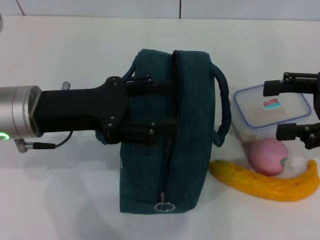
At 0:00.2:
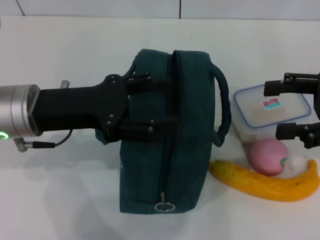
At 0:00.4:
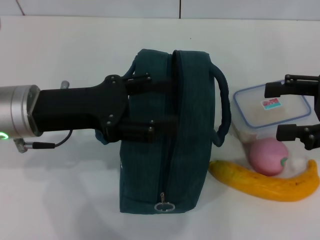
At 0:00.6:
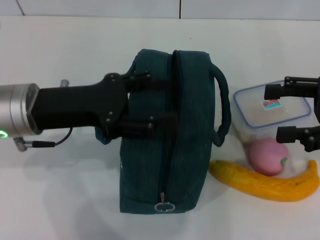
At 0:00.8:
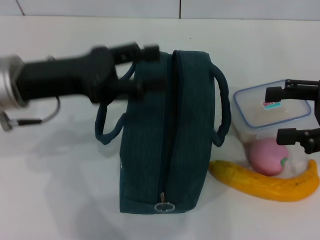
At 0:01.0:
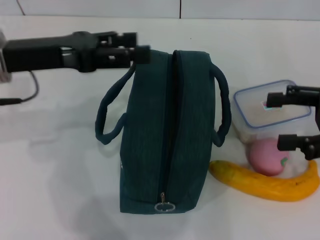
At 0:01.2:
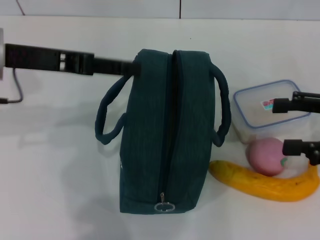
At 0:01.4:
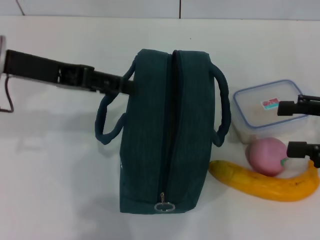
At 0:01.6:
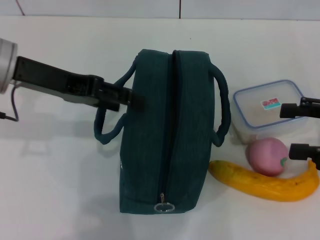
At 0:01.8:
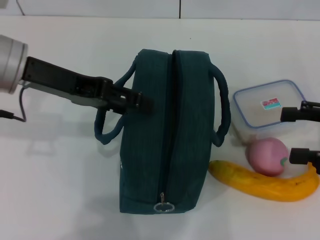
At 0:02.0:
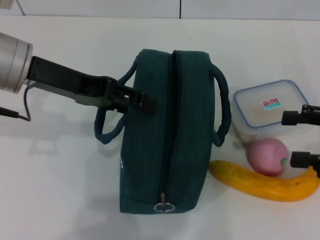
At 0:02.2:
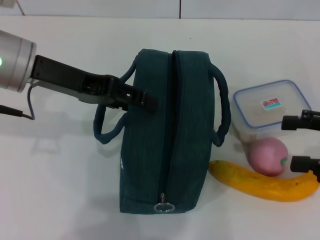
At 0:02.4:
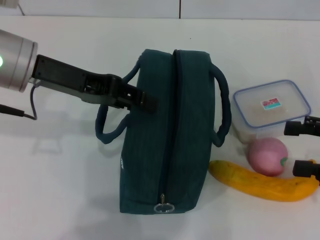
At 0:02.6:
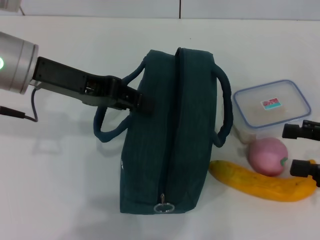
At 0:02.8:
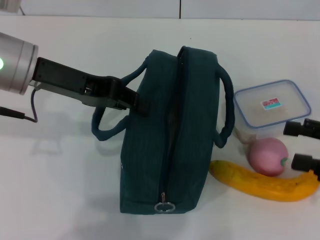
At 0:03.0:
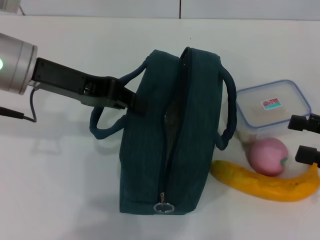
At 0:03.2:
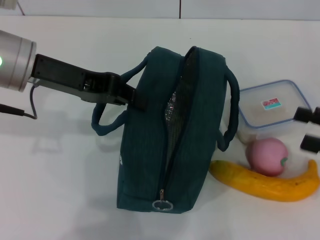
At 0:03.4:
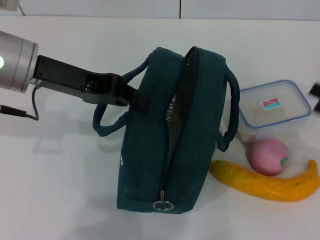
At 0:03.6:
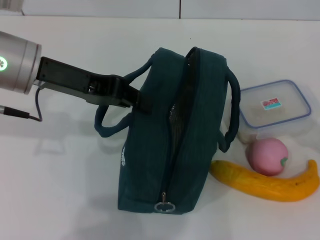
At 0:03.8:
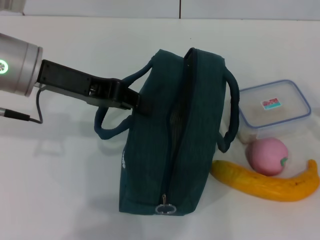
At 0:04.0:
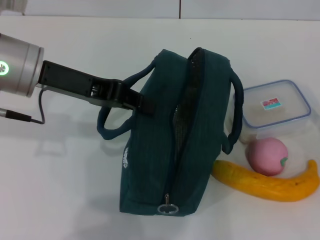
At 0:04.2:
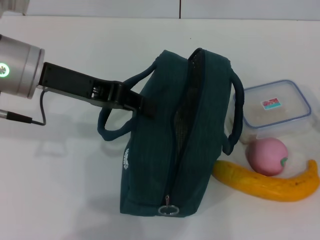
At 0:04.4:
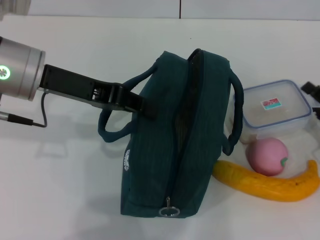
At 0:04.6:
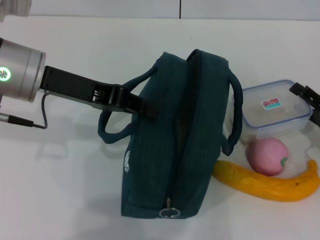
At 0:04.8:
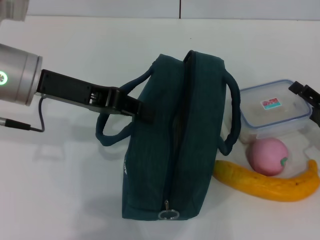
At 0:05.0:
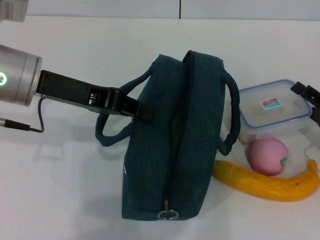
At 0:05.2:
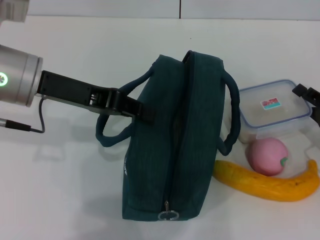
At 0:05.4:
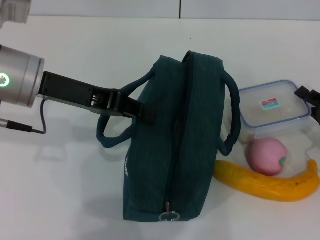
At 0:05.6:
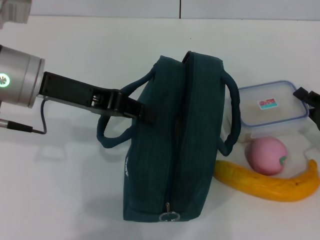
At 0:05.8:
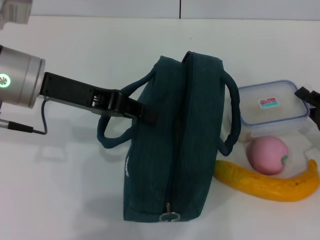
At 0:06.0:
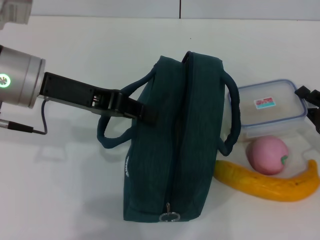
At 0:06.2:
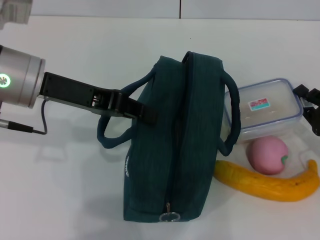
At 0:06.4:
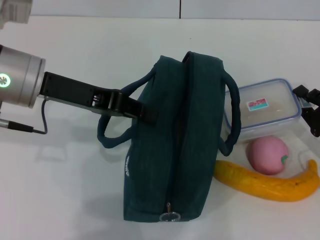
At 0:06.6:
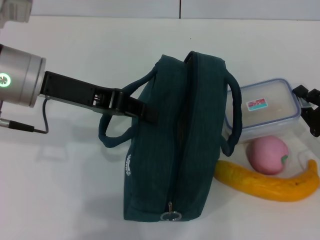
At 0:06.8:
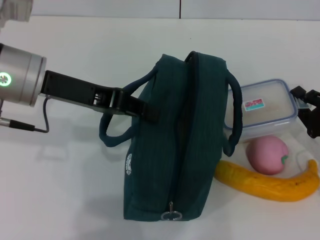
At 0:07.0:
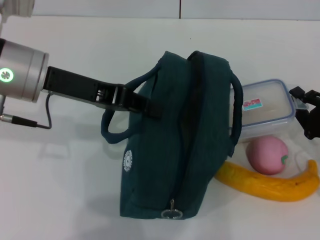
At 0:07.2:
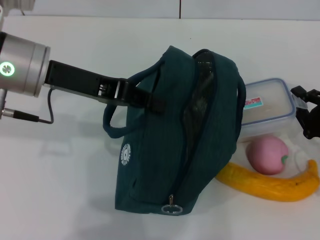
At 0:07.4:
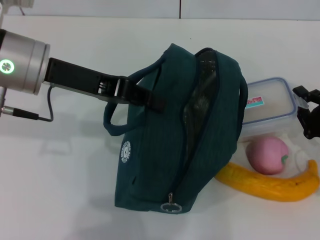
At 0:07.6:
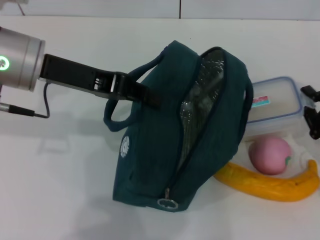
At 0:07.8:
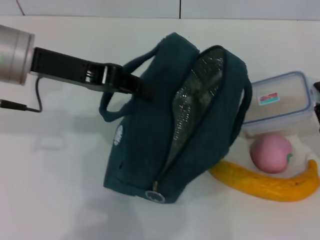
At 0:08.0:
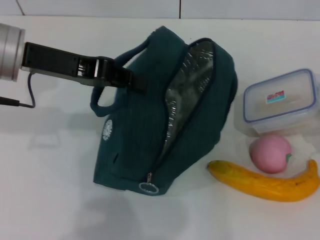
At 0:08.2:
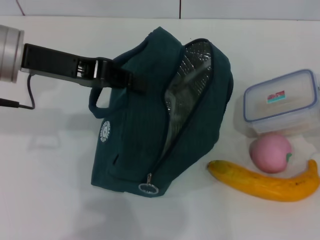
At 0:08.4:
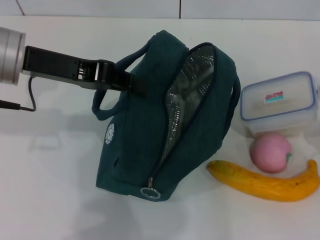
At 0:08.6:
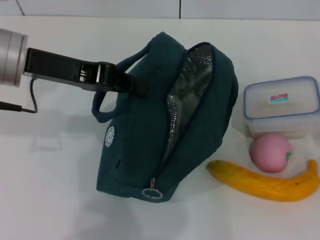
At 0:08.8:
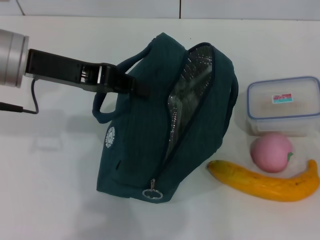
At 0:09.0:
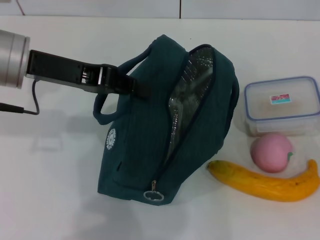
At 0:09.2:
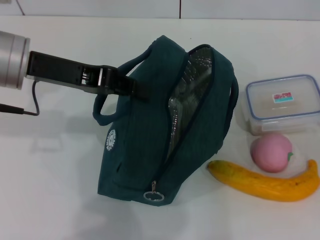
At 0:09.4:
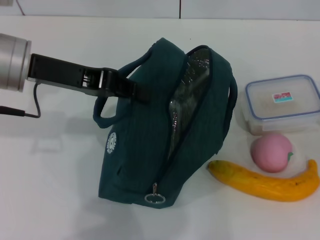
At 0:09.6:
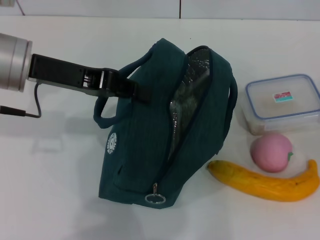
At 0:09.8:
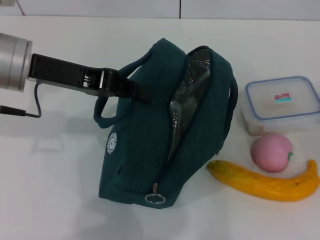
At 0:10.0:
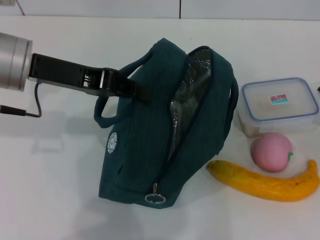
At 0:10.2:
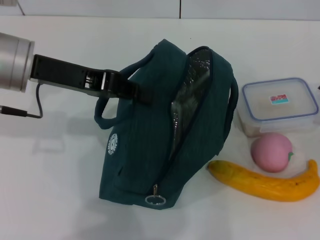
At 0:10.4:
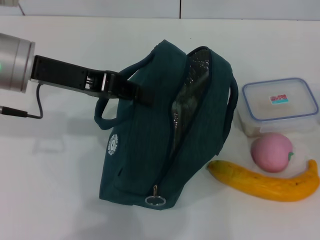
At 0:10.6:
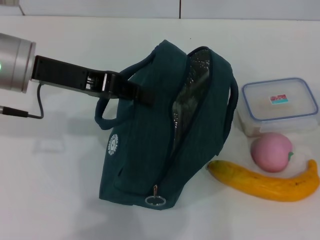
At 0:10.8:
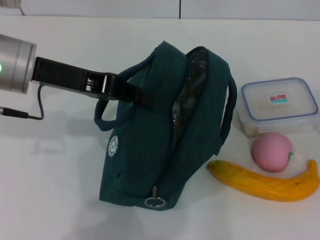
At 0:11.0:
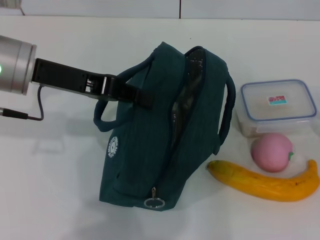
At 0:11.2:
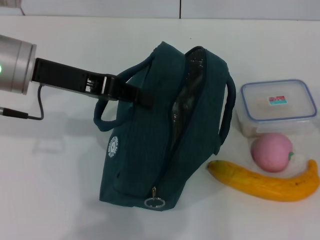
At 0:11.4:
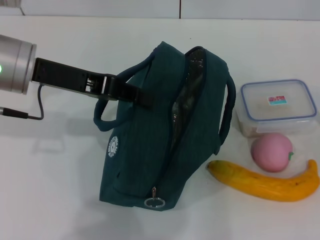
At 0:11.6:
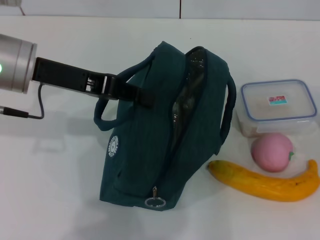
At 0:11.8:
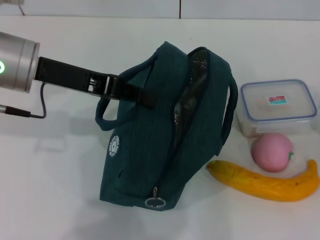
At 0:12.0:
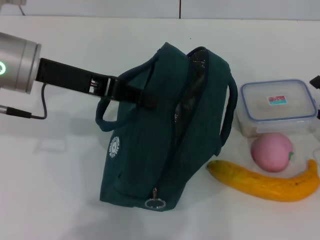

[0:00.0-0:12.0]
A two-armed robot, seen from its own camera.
Step, 0:00.0 to 0:03.4: Hold the lunch bag with your left hand.
0:00.0 to 0:01.6: The left gripper heads upward, covering about 5 cm.
0:01.6 to 0:03.0: The left gripper closes up, while the right gripper ends up approximately 5 cm from where it was.
0:03.0 to 0:04.4: The right gripper shifts about 10 cm downward.
0:04.4 to 0:06.0: The right gripper closes.
0:10.4 to 0:12.0: The right gripper opens its fingers.

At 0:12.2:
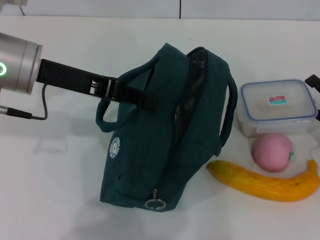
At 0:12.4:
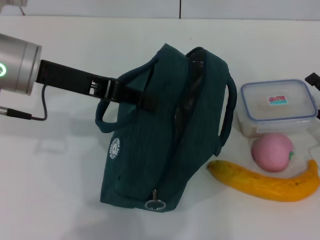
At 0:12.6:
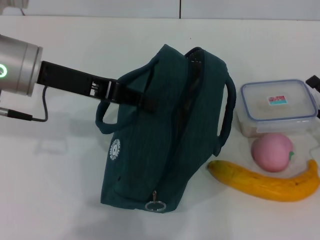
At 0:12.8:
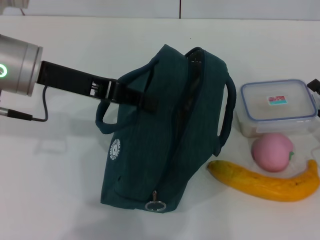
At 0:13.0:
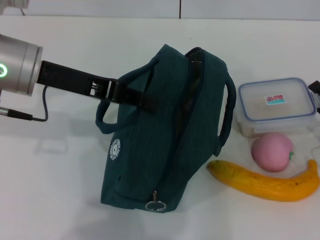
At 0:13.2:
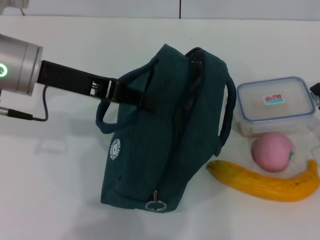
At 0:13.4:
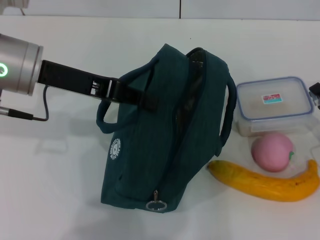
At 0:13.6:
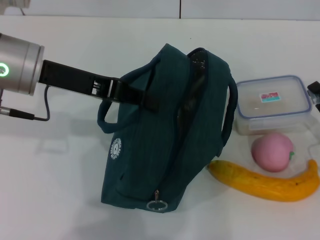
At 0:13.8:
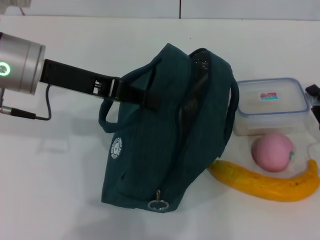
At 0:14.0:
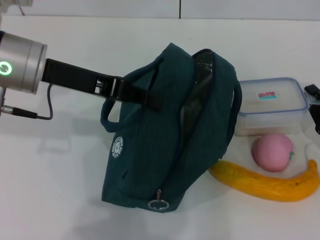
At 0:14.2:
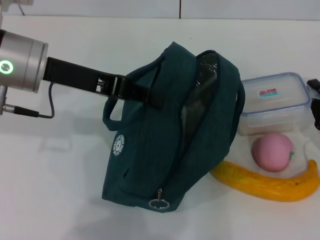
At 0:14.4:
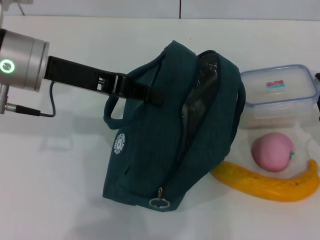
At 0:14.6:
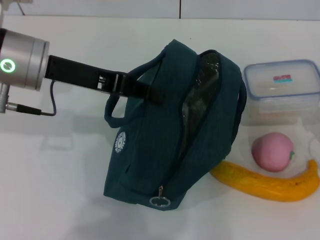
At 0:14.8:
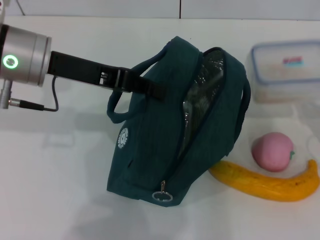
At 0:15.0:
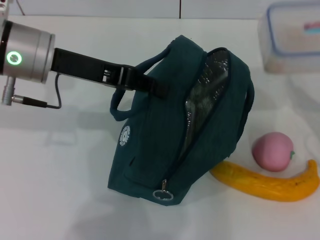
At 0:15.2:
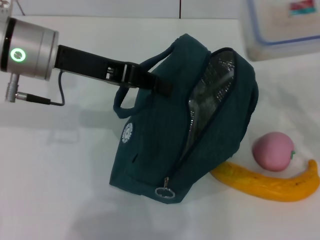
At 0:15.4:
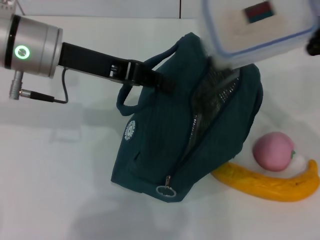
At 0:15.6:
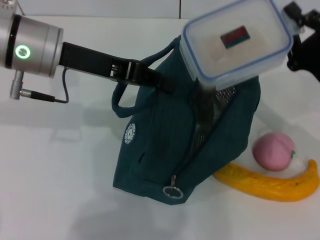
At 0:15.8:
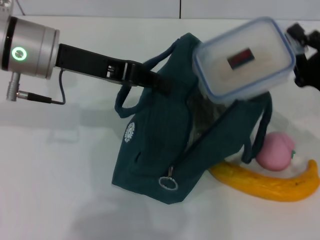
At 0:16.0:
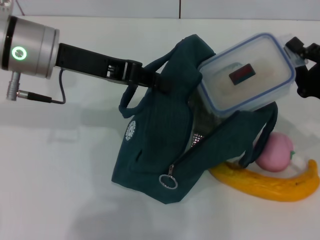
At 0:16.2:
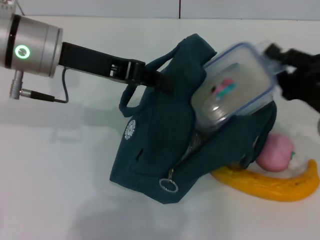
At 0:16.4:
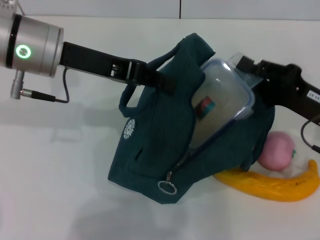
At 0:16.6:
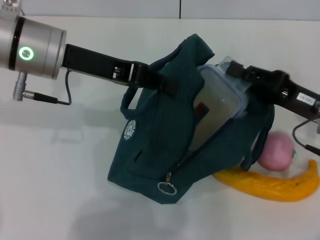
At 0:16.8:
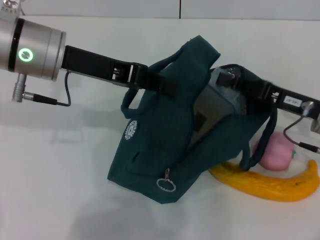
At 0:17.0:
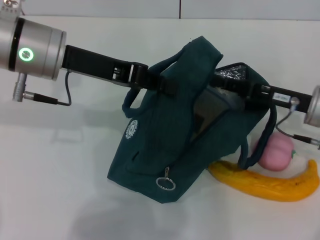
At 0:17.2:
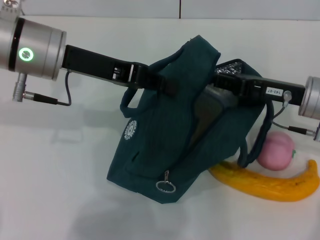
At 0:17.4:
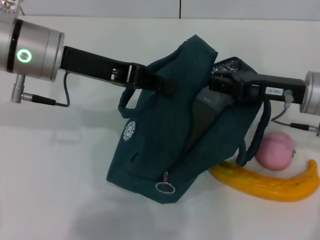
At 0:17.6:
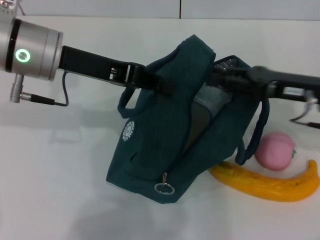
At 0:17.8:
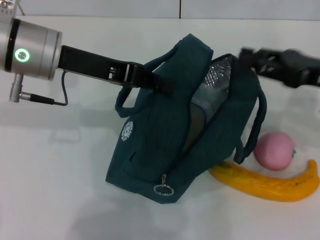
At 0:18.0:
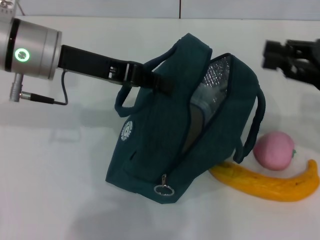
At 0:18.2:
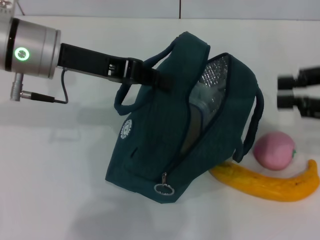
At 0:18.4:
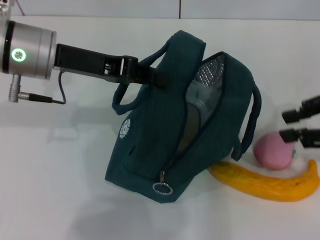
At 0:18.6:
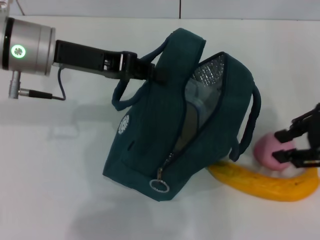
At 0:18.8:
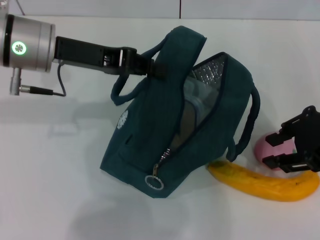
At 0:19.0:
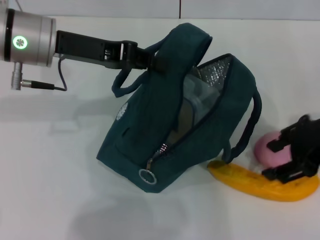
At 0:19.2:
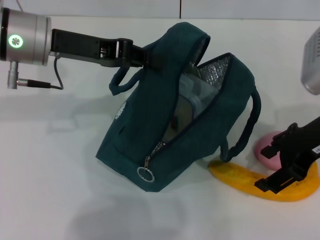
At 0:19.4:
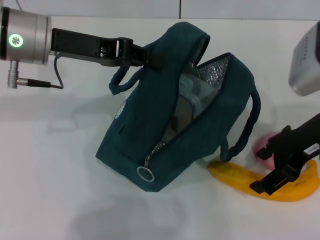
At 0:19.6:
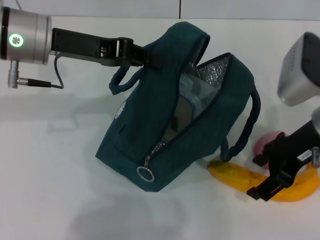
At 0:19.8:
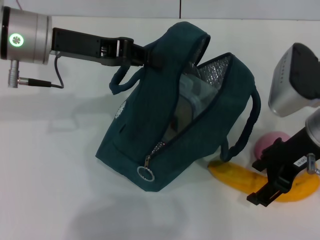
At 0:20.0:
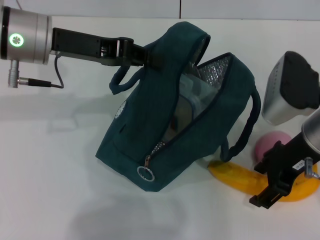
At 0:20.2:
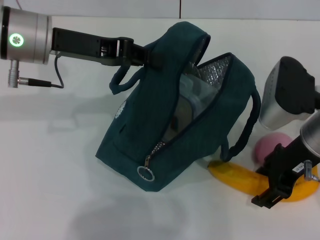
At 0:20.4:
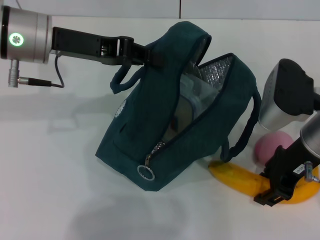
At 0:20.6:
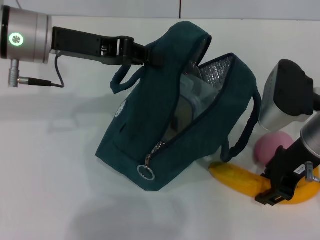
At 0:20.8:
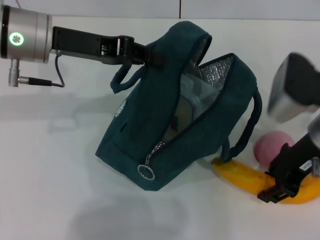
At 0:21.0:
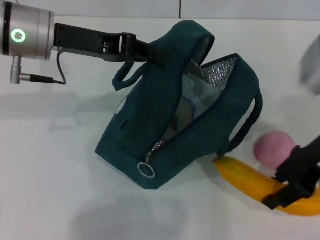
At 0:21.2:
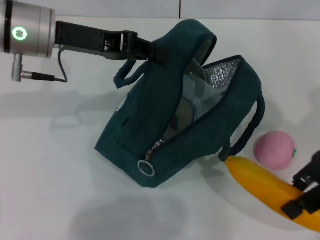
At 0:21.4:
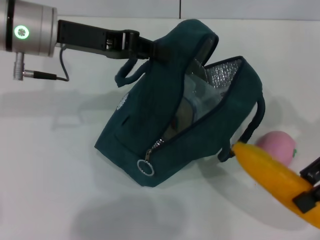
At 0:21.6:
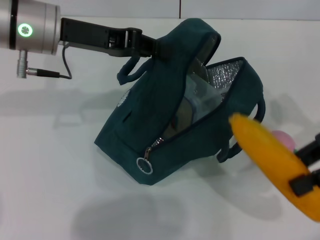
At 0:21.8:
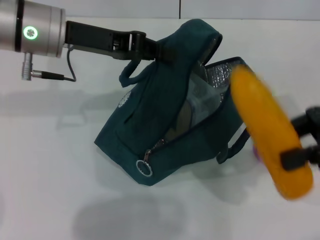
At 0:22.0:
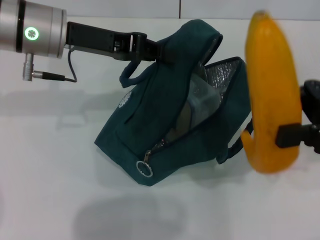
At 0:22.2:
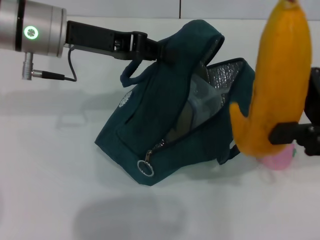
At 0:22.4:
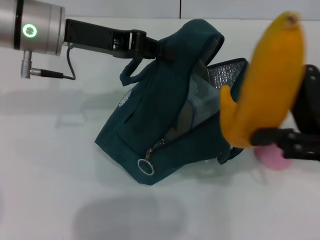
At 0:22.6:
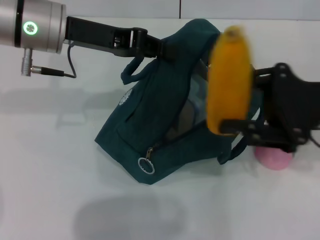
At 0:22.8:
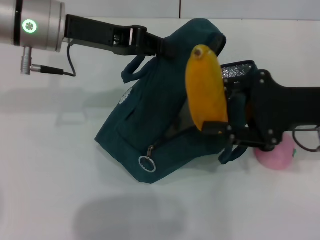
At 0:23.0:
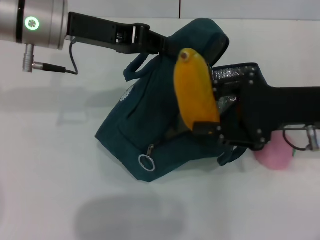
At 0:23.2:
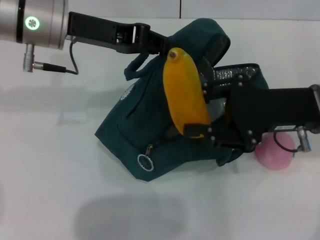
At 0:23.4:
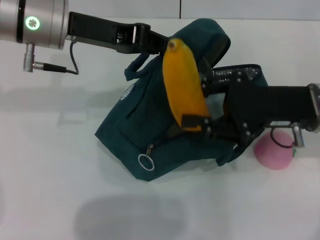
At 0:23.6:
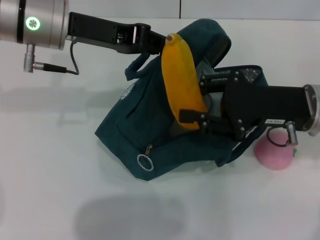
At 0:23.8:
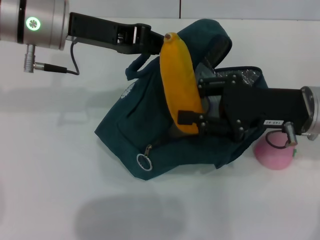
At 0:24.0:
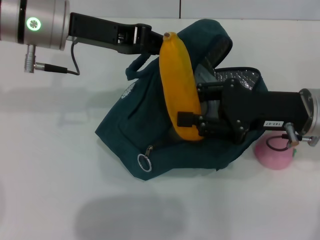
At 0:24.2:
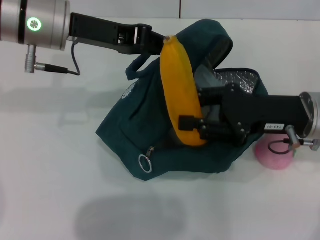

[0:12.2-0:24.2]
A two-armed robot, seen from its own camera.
Step, 0:12.2 to 0:14.2: Pick up the lunch box with your right hand.
Step, 0:14.4 to 0:17.6: Place the lunch box into the lunch bag with your right hand.
Step, 0:17.8 to 0:20.4: Take the banana with your right hand.
0:12.2 to 0:13.8: The right gripper closes its fingers.
0:13.8 to 0:15.2: The right gripper heads upward, covering roughly 10 cm.
0:15.2 to 0:16.6: The right gripper moves about 5 cm.
0:16.6 to 0:18.2: The right gripper goes roughly 15 cm upward and to the right.
0:18.2 to 0:19.8: The right gripper is displaced to the left by some 10 cm, and opens its fingers.
0:19.8 to 0:21.2: The right gripper goes roughly 5 cm to the right, and closes.
0:22.6 to 0:24.2: The right gripper shifts by roughly 5 cm.
